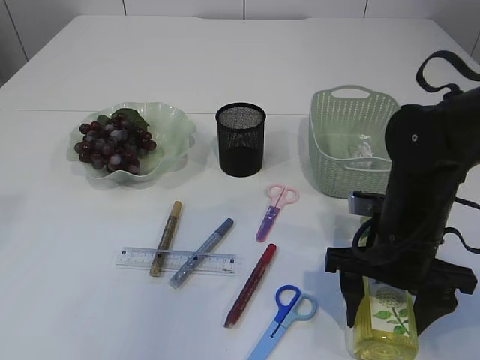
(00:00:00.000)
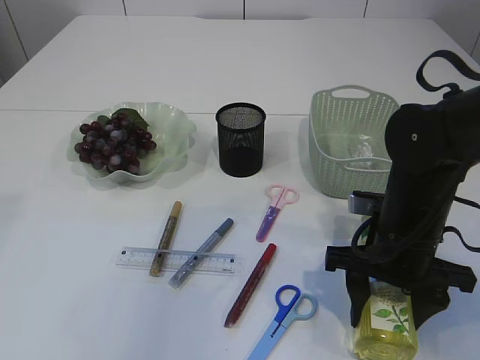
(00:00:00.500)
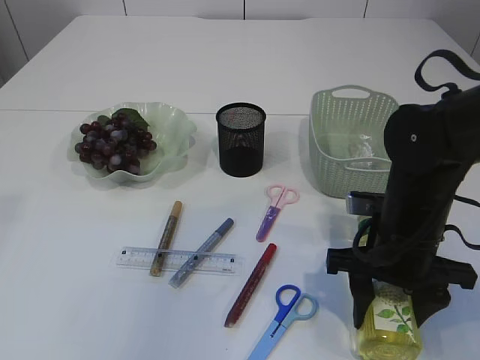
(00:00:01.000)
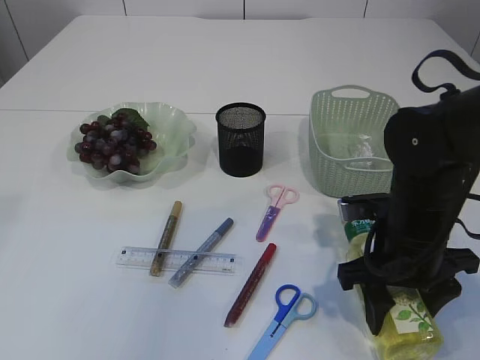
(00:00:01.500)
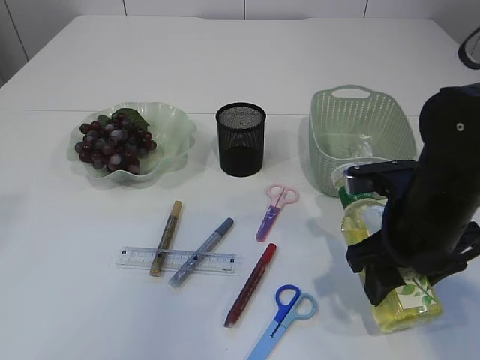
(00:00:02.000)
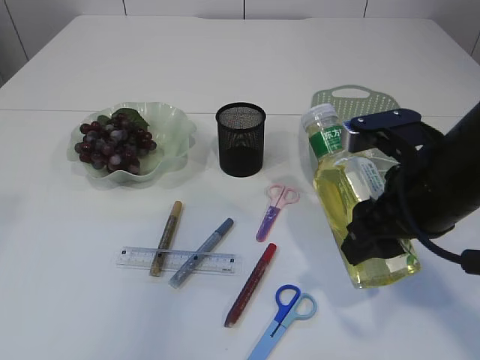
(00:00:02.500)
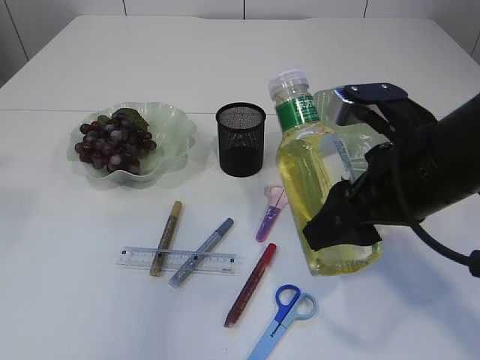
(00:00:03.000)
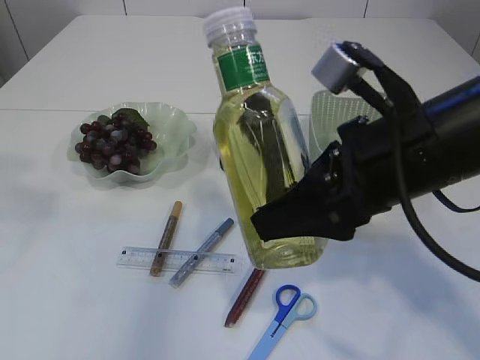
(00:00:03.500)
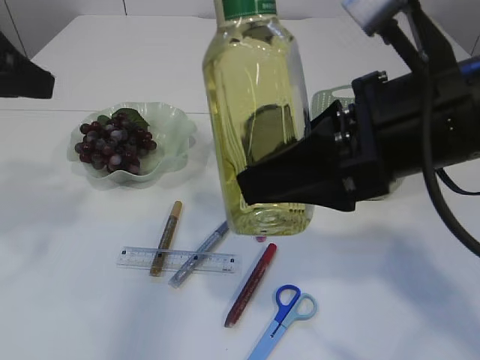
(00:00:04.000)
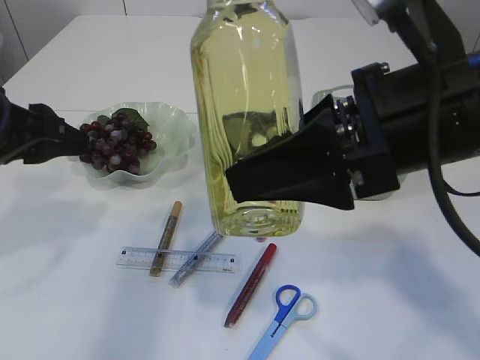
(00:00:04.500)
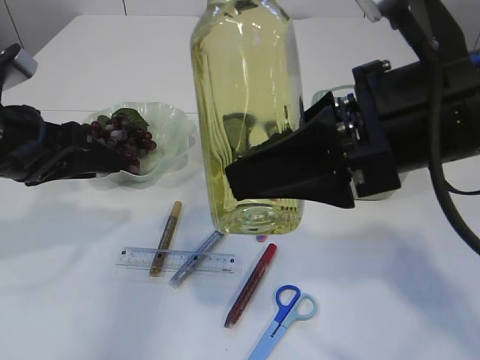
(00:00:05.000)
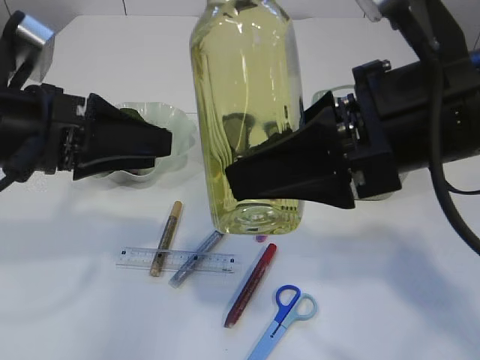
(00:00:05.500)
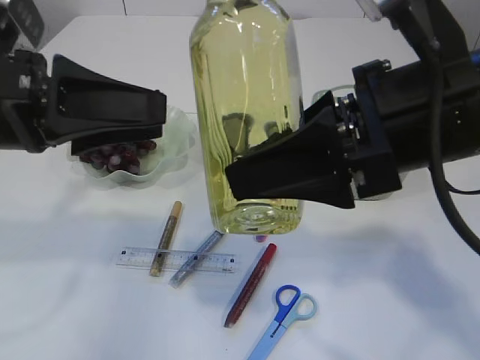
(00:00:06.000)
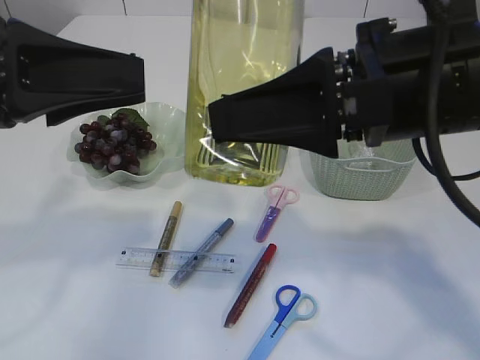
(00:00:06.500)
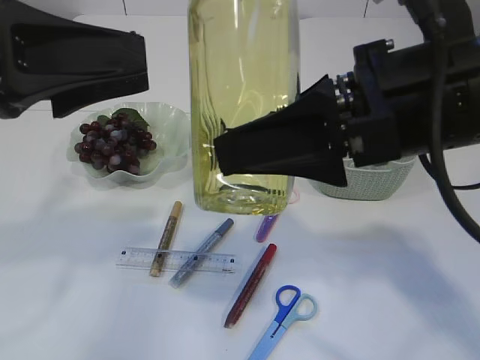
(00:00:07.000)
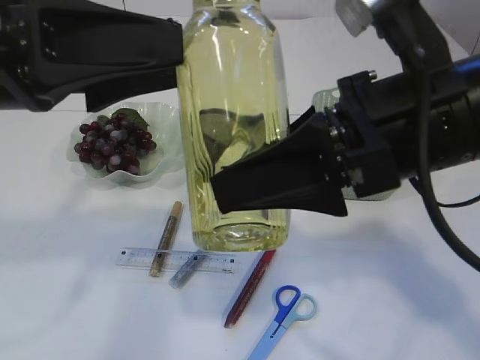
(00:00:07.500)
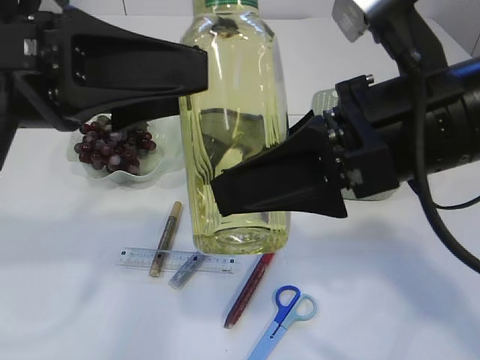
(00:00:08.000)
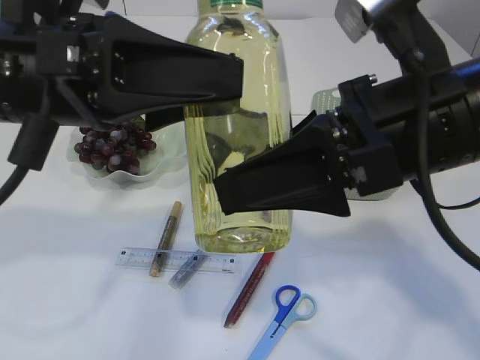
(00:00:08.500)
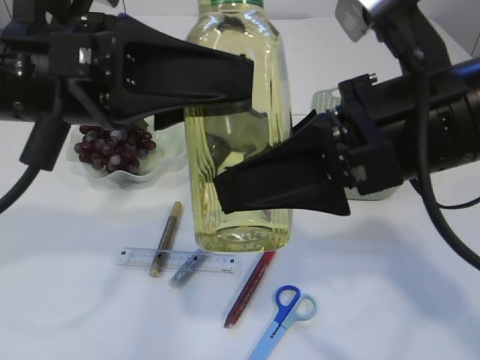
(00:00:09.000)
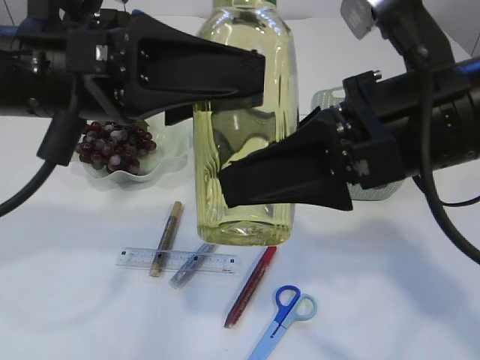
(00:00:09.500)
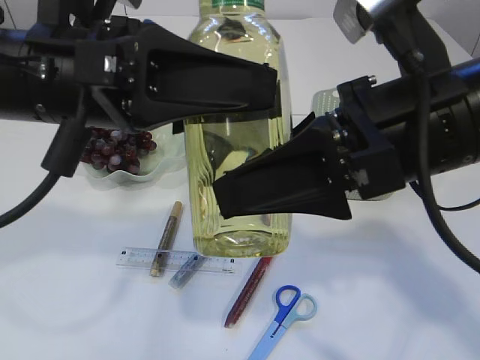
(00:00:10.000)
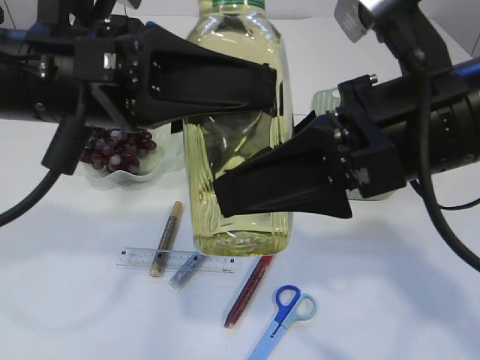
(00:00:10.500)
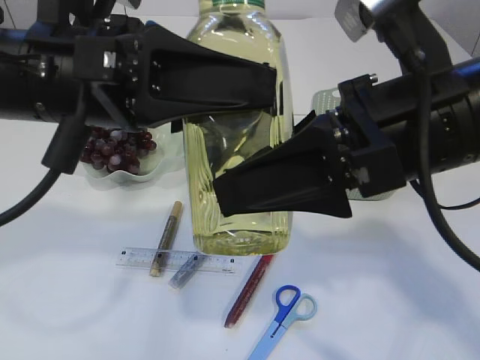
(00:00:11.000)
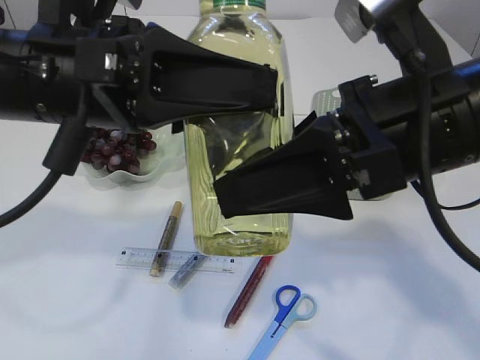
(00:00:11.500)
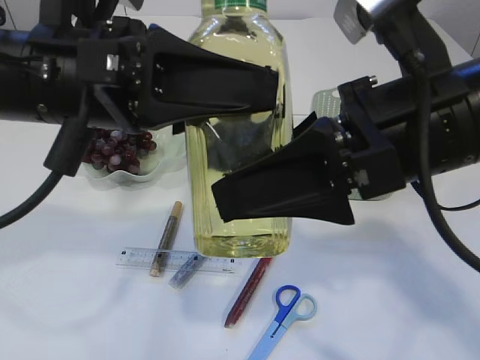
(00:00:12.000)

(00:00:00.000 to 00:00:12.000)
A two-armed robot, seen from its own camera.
Step, 00:00:00.000 - 00:00:02.000: Pick up the bottle with the right arm.
00:00:02.000 - 00:00:04.000: The left gripper heads downward and forward, covering some 15 cm, while the right gripper heads upward, covering approximately 15 cm.
00:00:04.000 - 00:00:06.000: The left gripper shifts roughly 10 cm downward and to the right.
00:00:08.000 - 00:00:10.000: The grippers stay close to where they were, moving slightly.
00:00:10.000 - 00:00:12.000: Both grippers stay put.

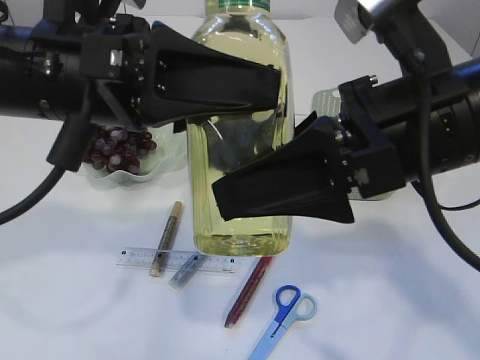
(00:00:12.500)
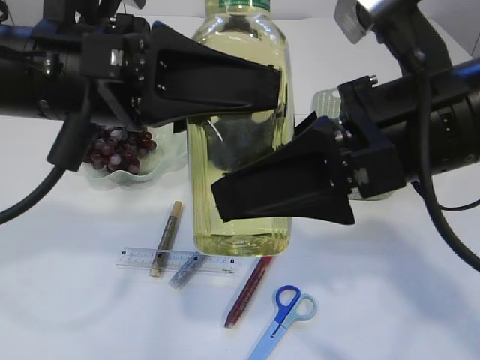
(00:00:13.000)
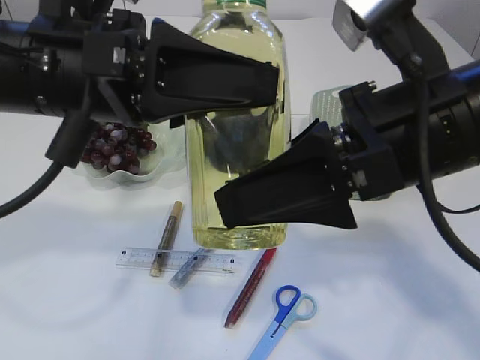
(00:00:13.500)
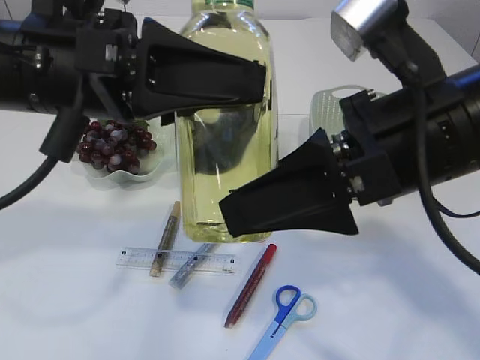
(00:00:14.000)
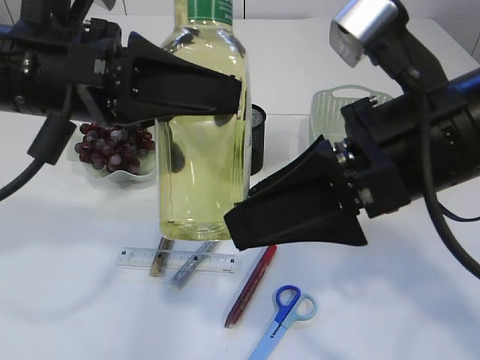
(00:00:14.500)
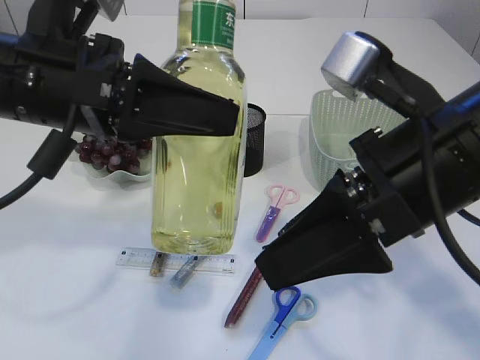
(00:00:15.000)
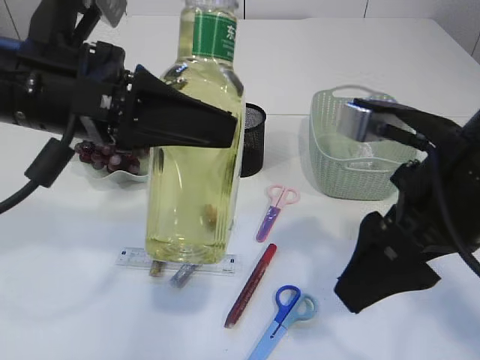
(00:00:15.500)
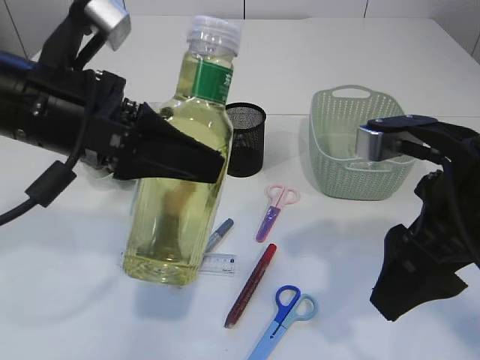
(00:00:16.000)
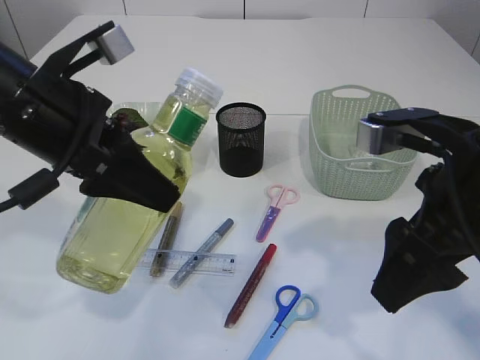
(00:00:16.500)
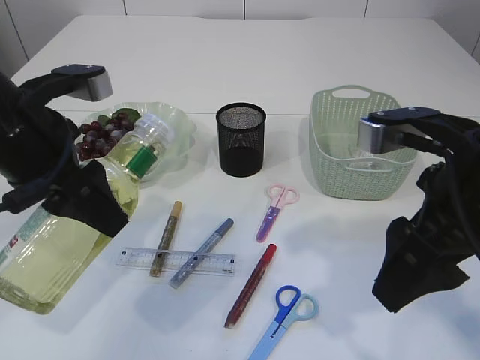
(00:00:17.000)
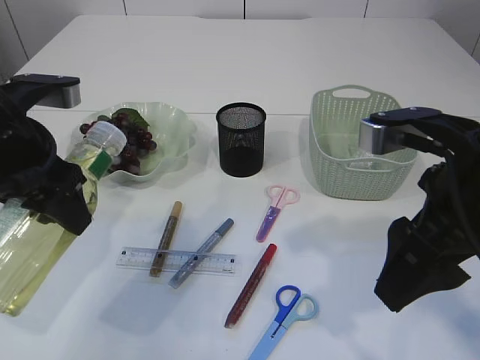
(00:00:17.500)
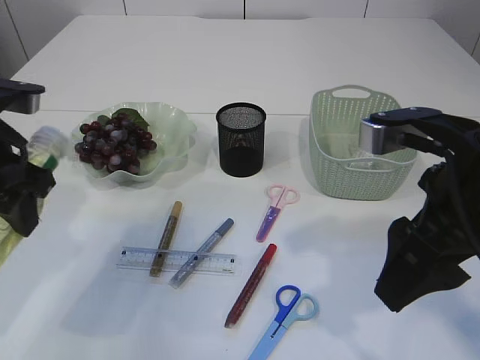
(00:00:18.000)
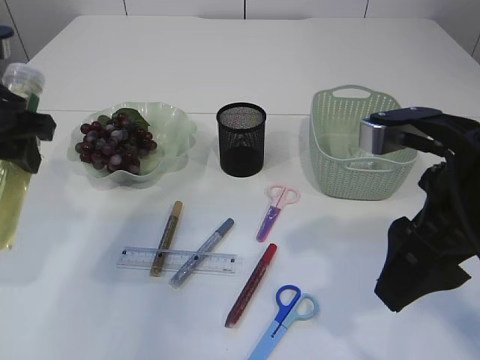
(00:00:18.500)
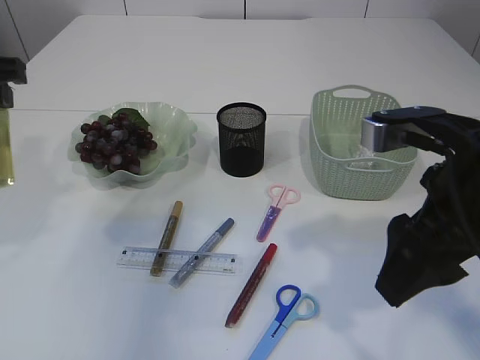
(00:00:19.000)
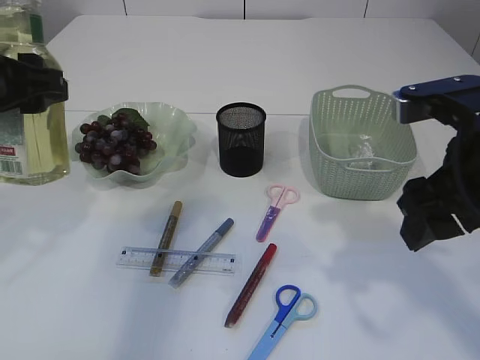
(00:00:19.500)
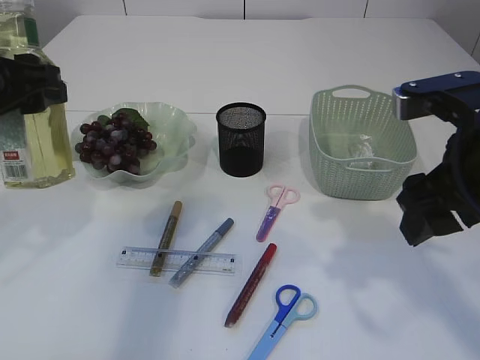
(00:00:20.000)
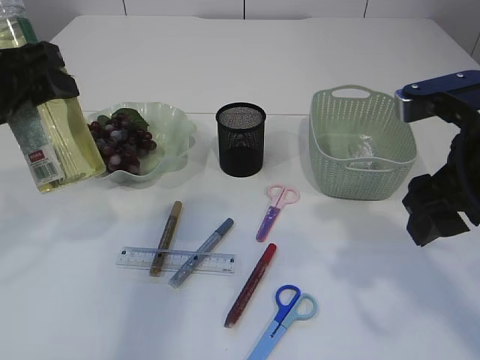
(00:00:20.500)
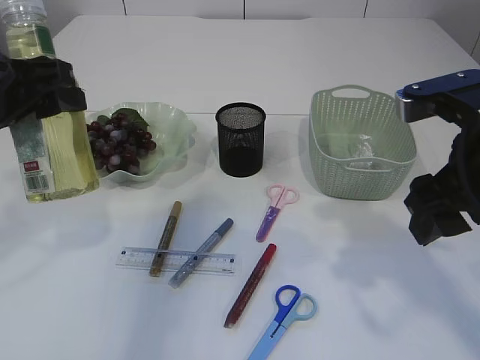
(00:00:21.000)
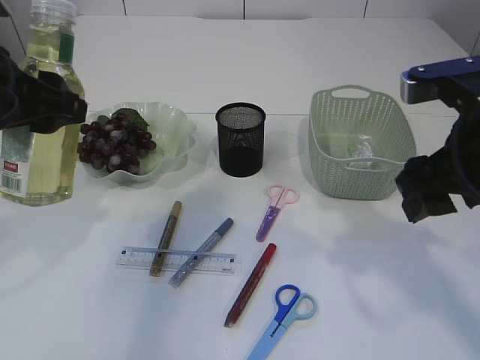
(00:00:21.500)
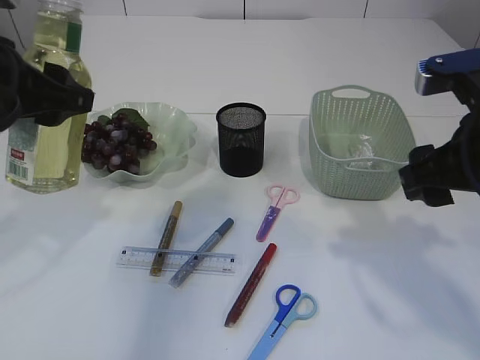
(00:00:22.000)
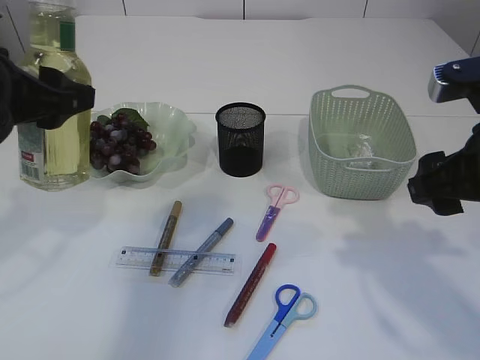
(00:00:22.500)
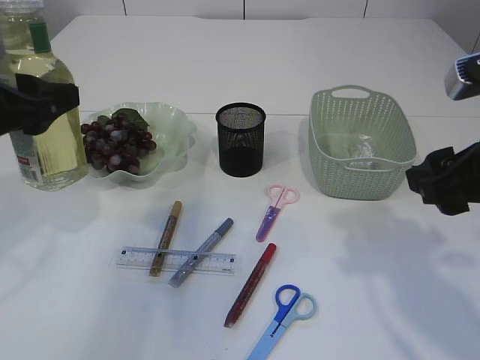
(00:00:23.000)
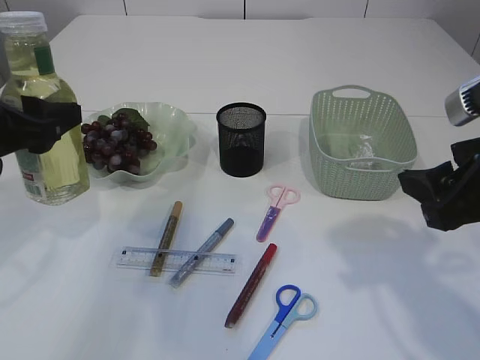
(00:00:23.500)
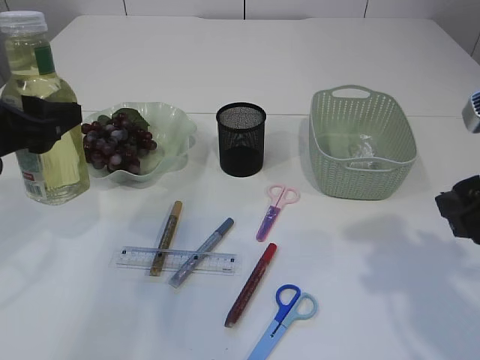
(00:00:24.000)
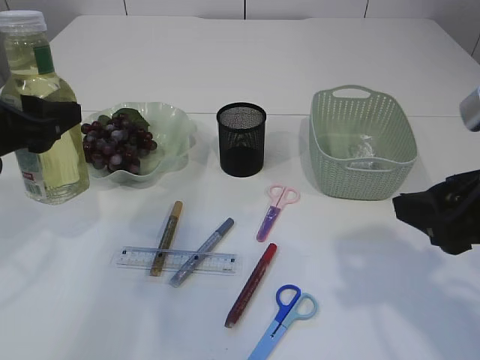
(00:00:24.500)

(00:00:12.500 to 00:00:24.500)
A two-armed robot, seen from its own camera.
Step, 00:00:12.500 - 00:00:15.000: transfer the bottle to the left arm.
00:00:14.500 - 00:00:16.500: The right gripper moves to the right, approximately 5 cm.
00:00:16.500 - 00:00:18.500: The left gripper travels to the left by approximately 10 cm.
00:00:22.500 - 00:00:24.500: The left gripper moves approximately 5 cm.

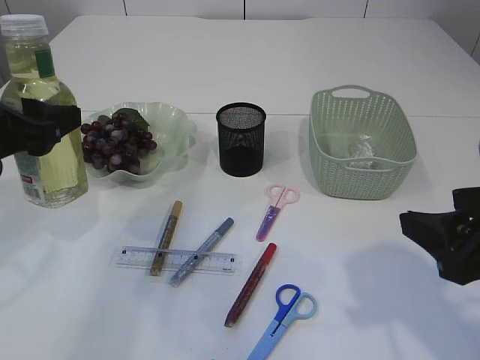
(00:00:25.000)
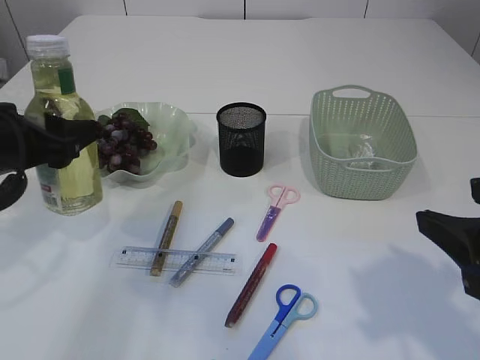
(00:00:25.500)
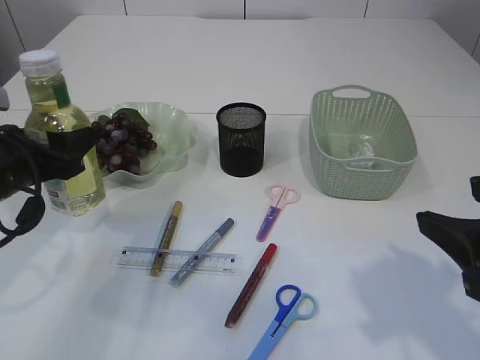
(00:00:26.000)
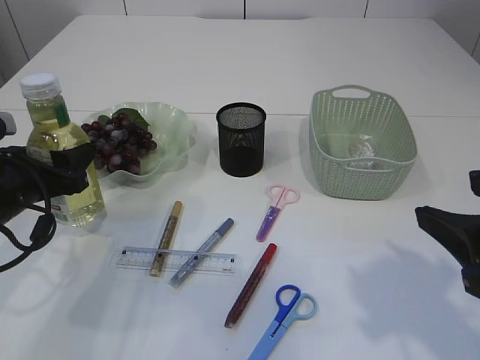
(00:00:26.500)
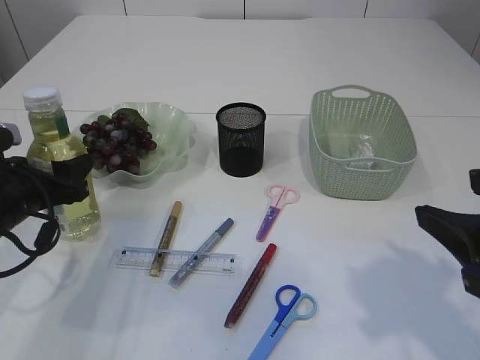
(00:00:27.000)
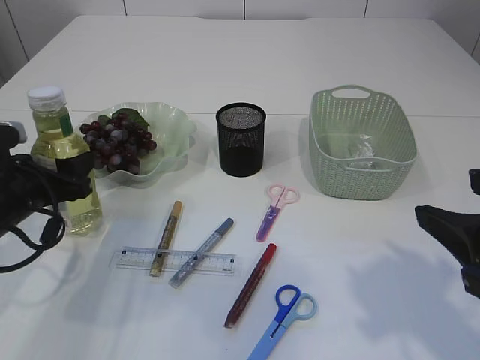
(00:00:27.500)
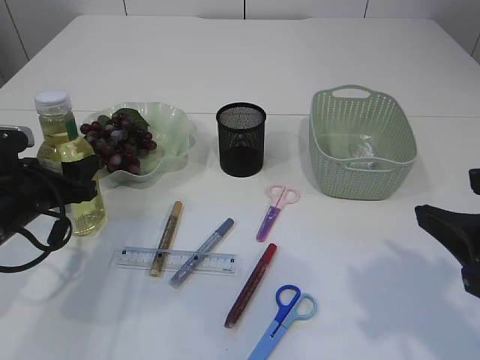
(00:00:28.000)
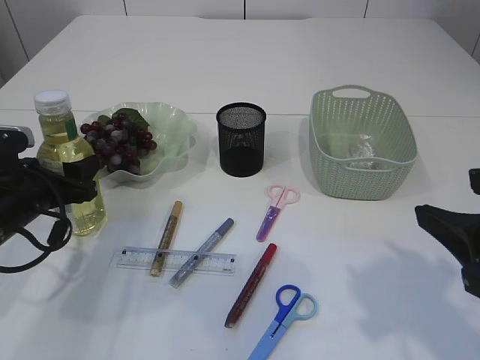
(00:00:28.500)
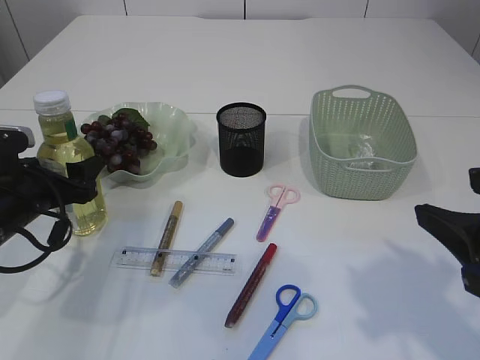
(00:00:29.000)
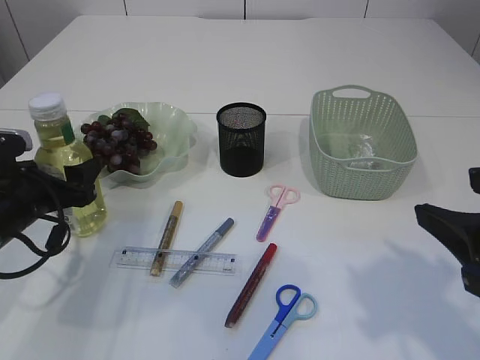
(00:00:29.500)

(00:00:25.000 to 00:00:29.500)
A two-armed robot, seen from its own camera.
00:00:25.000 - 00:00:27.000: The left gripper is displaced downward by some 10 cm.
00:00:27.000 - 00:00:29.500: The grippers make only small movements.
